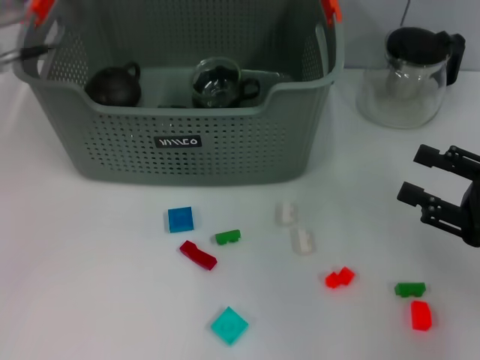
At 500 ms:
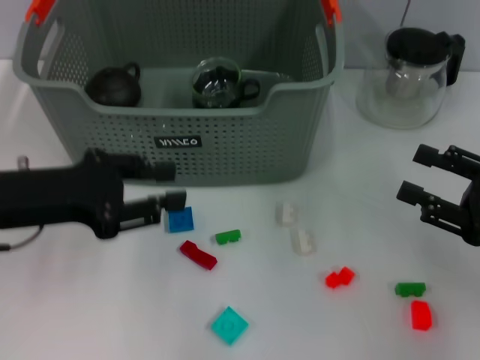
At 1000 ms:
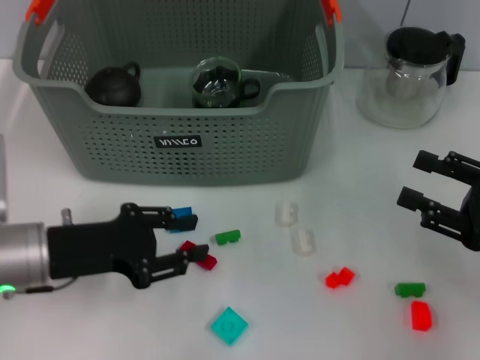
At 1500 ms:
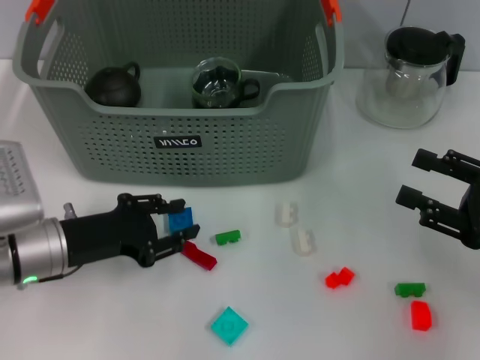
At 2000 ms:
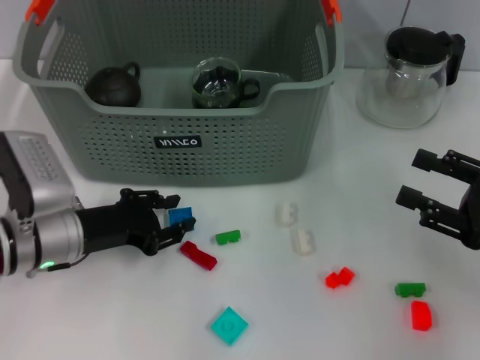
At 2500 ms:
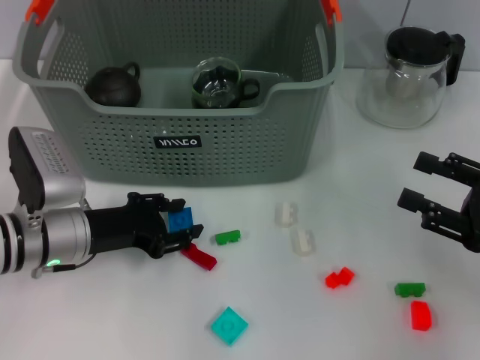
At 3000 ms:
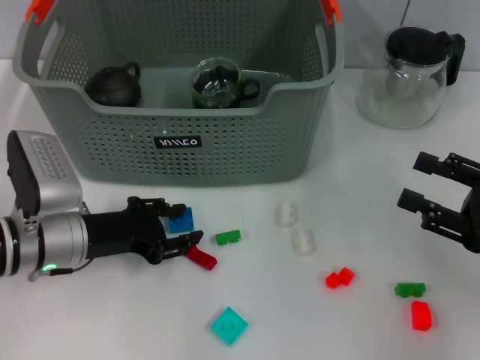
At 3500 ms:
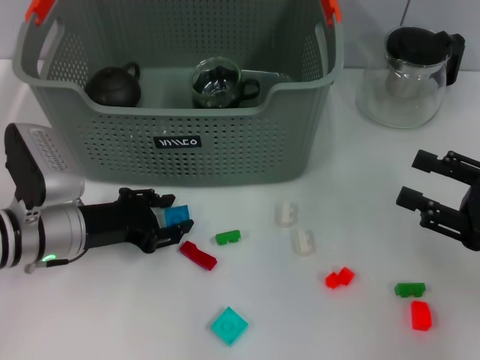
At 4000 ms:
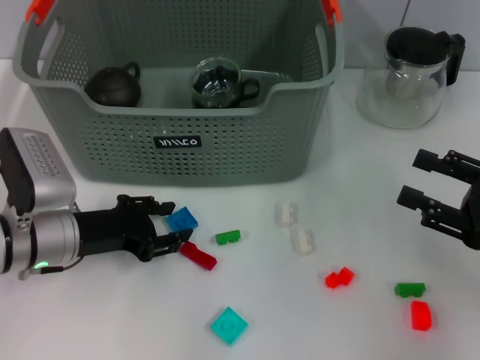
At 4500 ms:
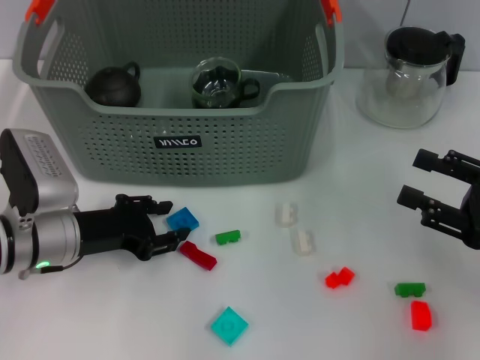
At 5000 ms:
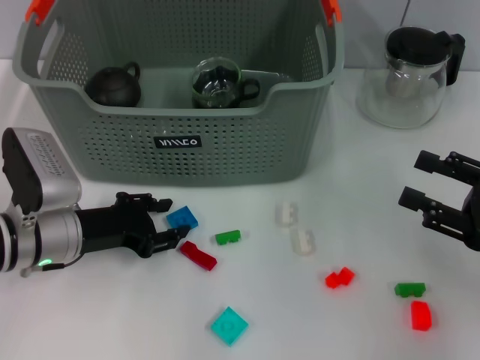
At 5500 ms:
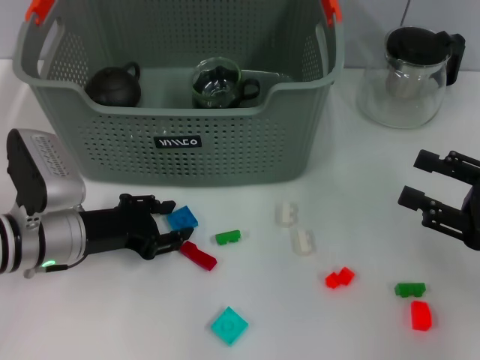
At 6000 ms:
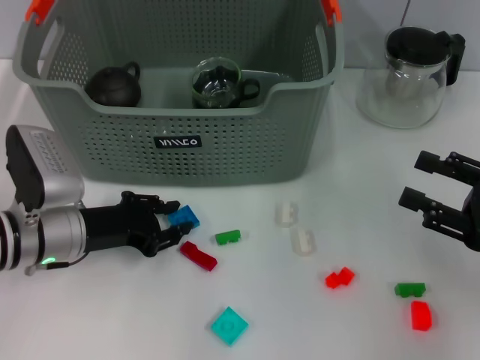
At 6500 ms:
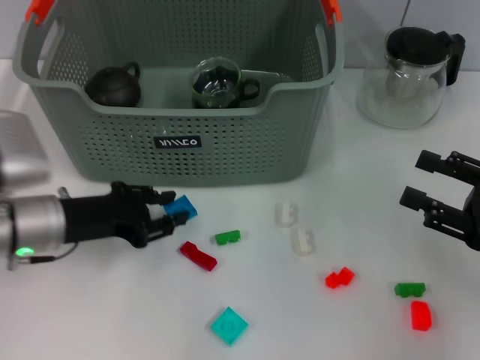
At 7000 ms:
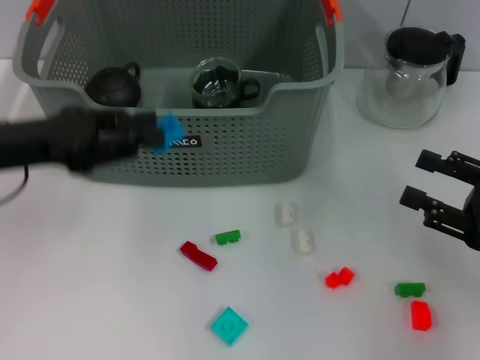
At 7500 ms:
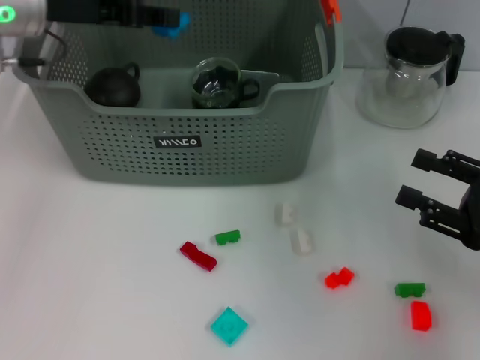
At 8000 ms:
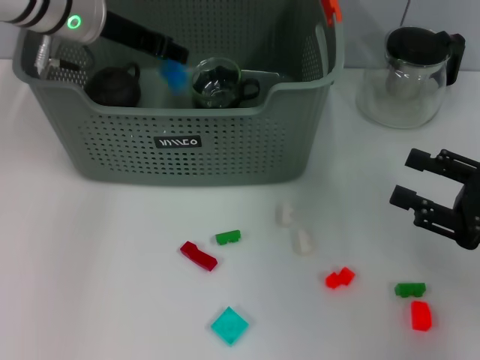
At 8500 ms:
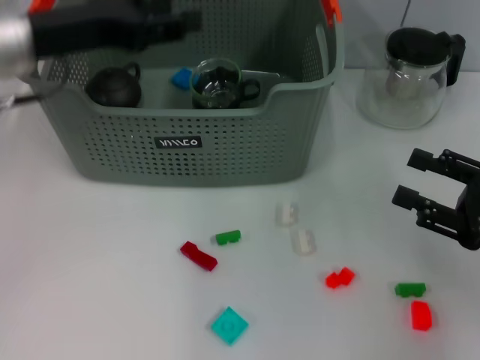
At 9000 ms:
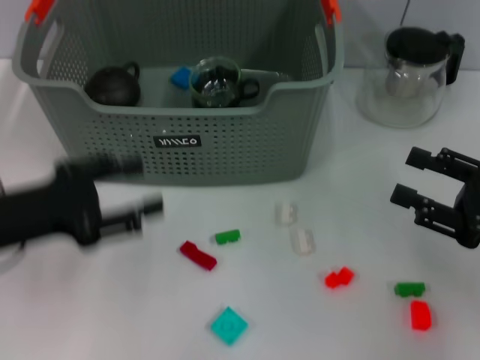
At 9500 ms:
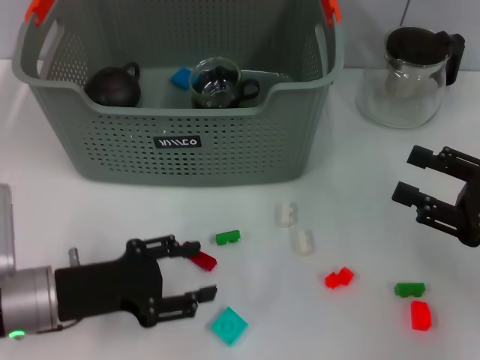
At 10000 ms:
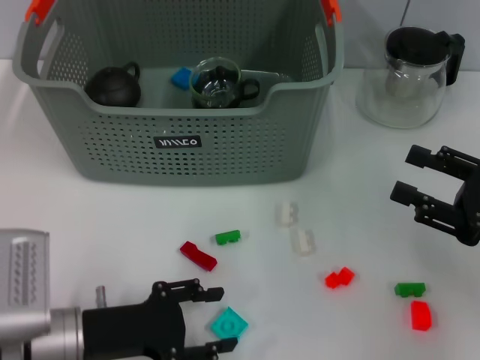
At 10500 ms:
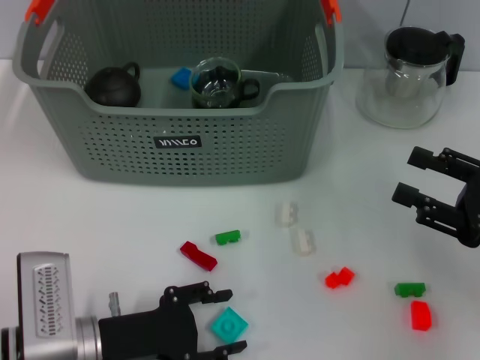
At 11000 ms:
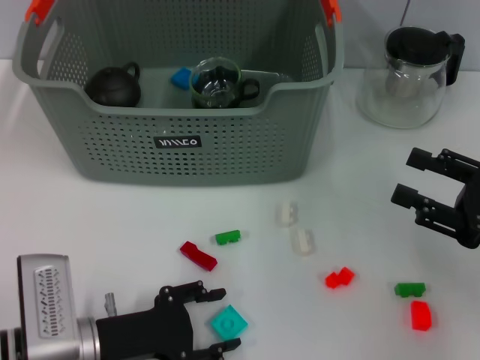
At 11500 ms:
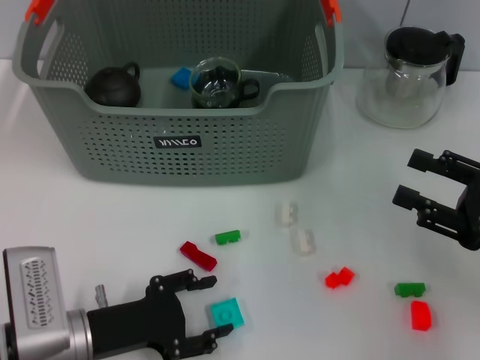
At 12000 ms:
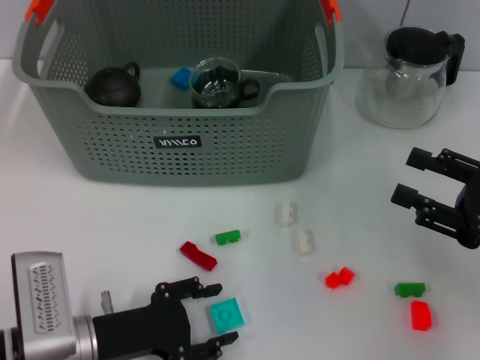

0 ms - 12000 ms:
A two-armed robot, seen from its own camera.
Task of the whole recording: pick up the teacup on the table and place it into the storage bin, pick up the block on the table and place it into the storage bin.
Step, 500 ms - 6000 ms: Grasp the dark blue block with left gripper.
Step, 6500 ms - 8500 ms: Place the dark blue block in the storage box with left gripper.
0 ms - 2000 ms: The left gripper heads downward, covering some 20 cm.
2000 ms - 4000 ms: The two grippers keep their place.
4000 ms - 6000 ms: Neither gripper changes place.
6000 ms - 8000 ms: The left gripper heads upward and forward, covering roughly 20 cm.
8000 ms - 10000 ms: The left gripper goes roughly 30 cm backward and downward, and opens up.
10000 ms - 12000 ms: The grippers make only small movements.

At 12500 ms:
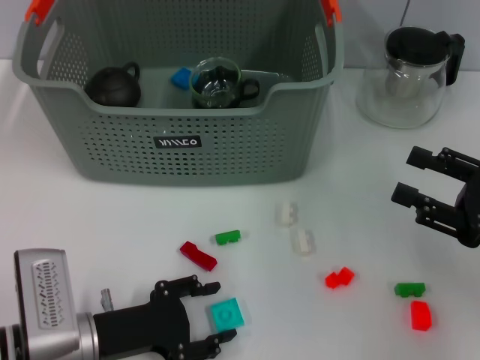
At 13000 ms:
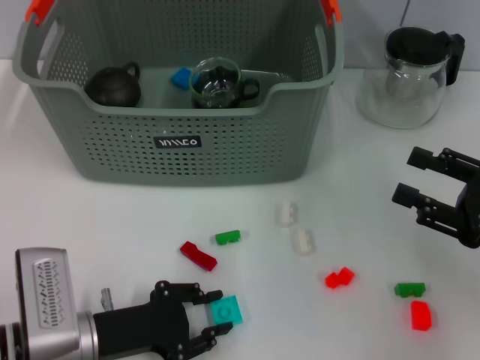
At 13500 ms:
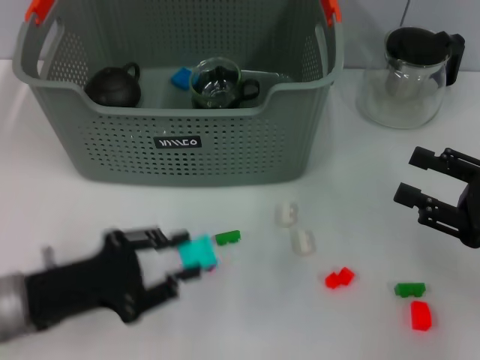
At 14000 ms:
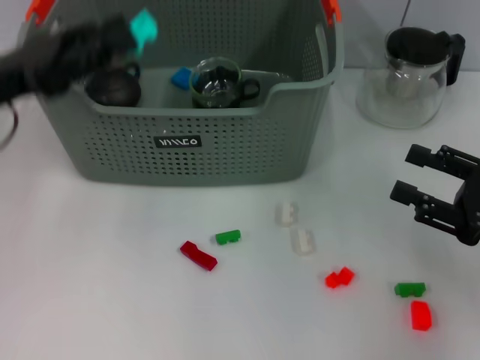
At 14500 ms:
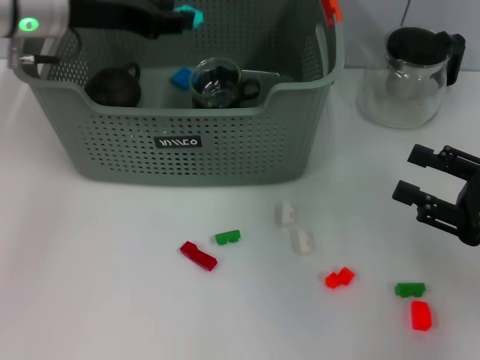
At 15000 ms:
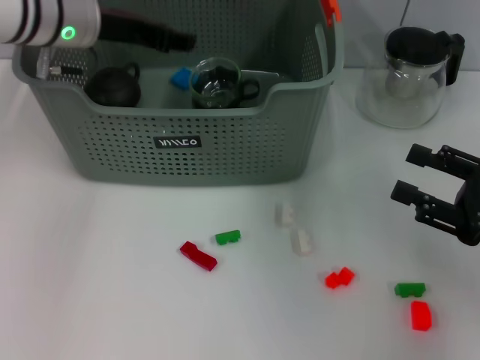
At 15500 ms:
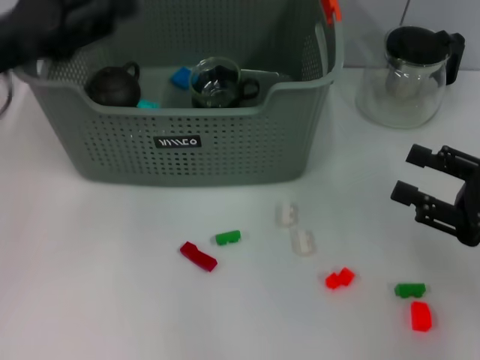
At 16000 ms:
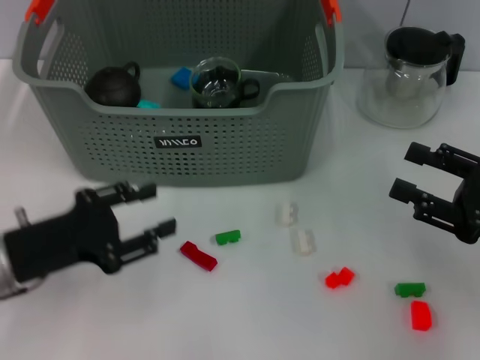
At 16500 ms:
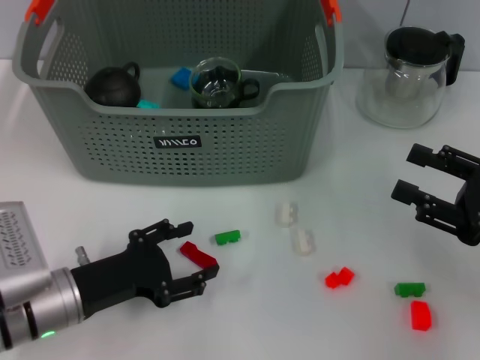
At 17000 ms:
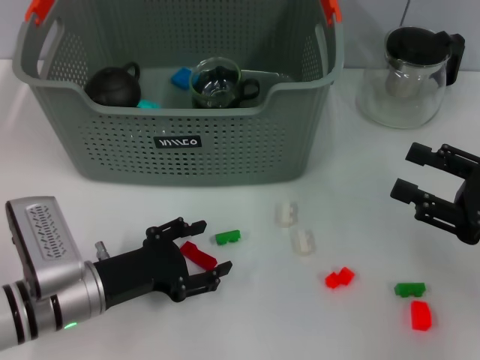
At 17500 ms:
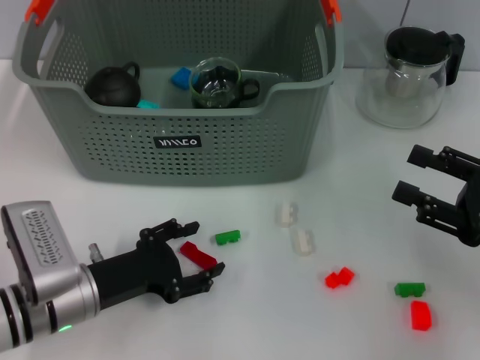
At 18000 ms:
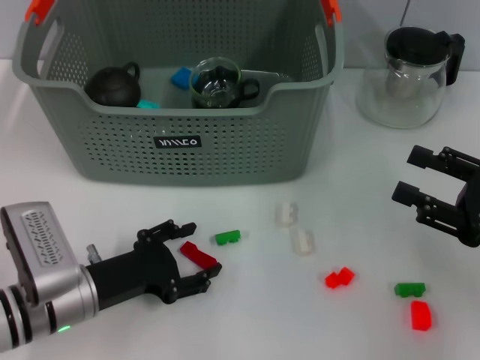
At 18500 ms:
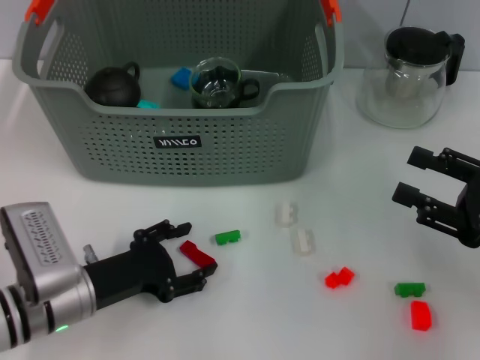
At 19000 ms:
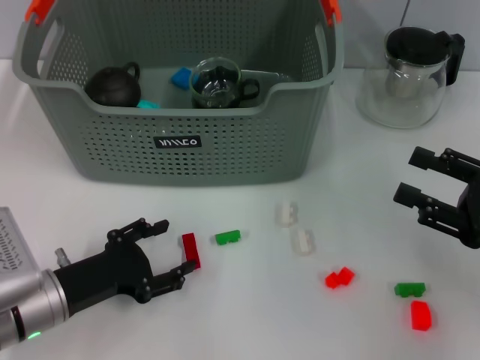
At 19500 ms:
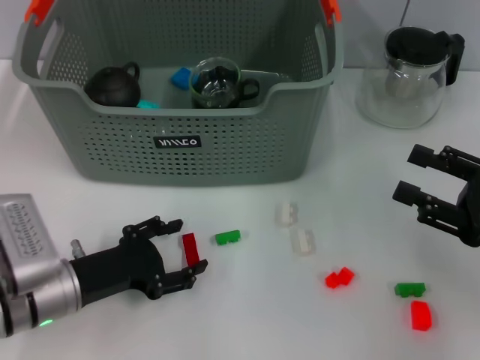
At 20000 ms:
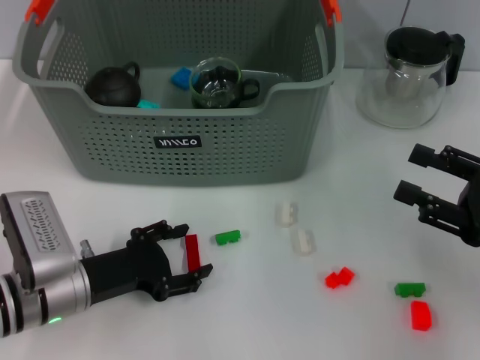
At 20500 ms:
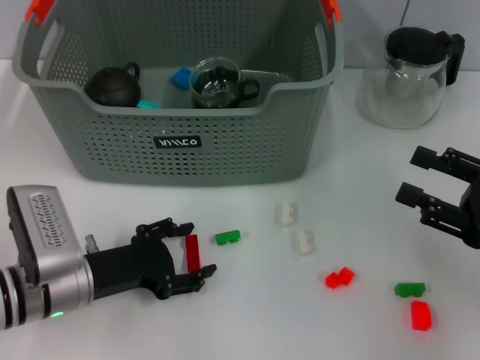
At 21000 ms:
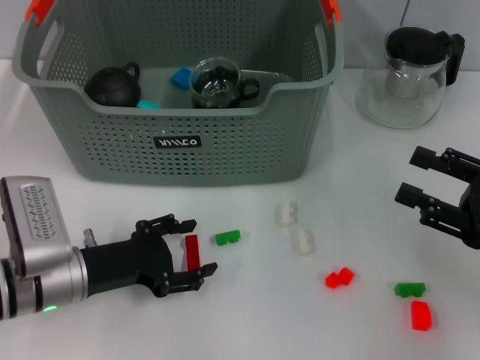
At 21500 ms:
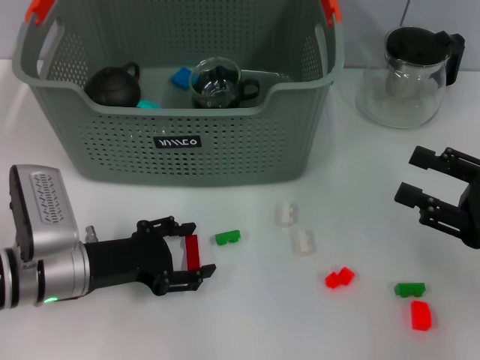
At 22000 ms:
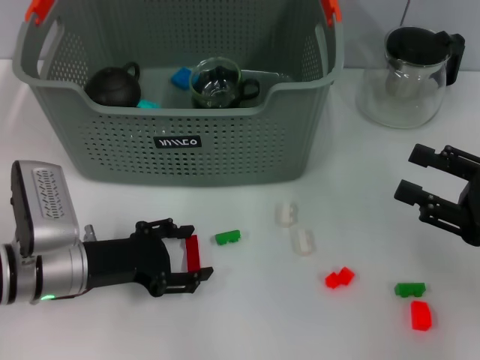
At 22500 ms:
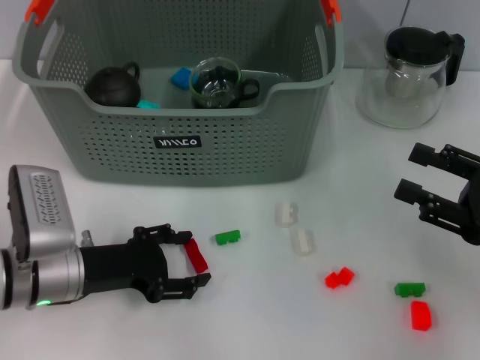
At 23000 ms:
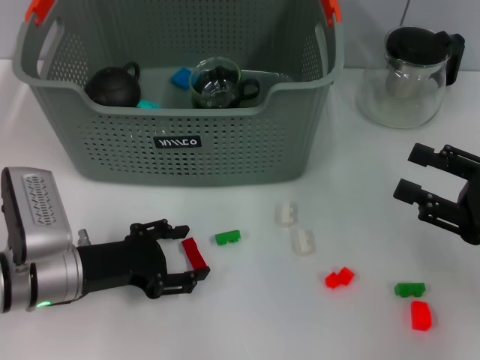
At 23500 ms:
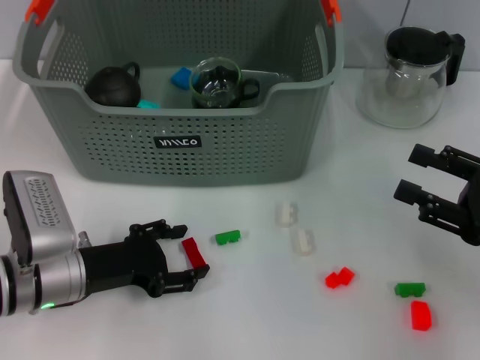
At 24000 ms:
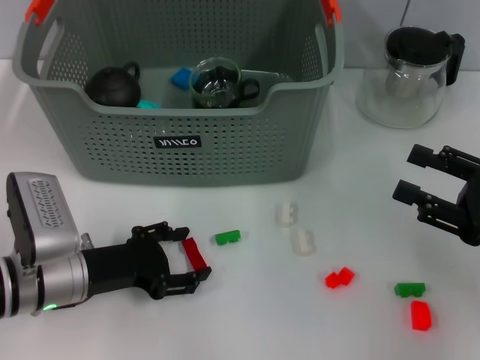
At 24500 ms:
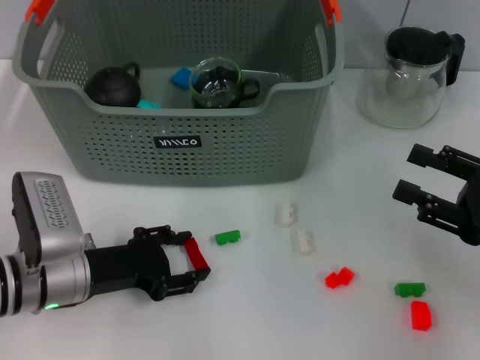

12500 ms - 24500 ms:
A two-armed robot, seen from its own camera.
Task of the whole recording: pick up the teacup on the table and place it into the storage bin, pick up the block on the table and place it into the storage bin.
Step, 13500 ms - 15500 ms: Place the light blue block in the storage box with left gripper.
Step, 16000 ms - 24500 ms: Grasp the red block with left gripper.
12500 ms - 14500 ms: The left gripper moves upward and forward, about 30 cm, and closes.
14500 ms - 16500 ms: The left gripper goes roughly 30 cm downward and backward.
16500 ms - 22500 ms: The grippers make only small movements.
22500 ms - 24500 ms: Neither gripper changes place.

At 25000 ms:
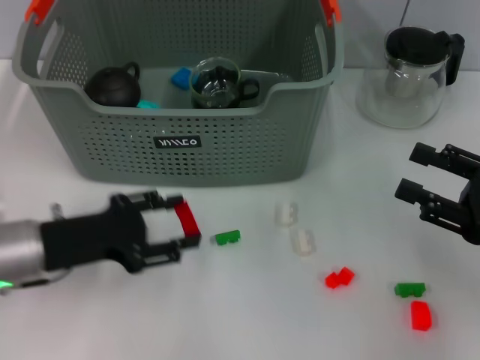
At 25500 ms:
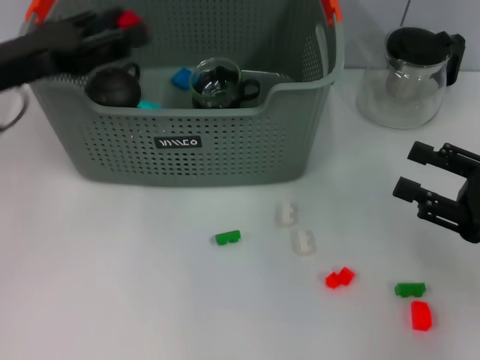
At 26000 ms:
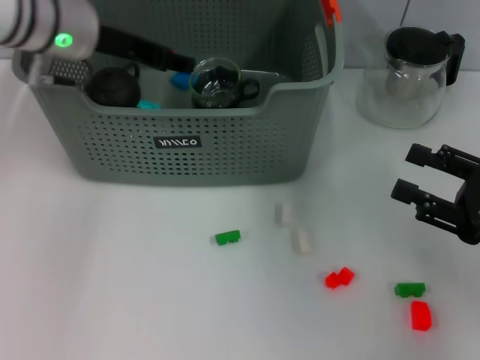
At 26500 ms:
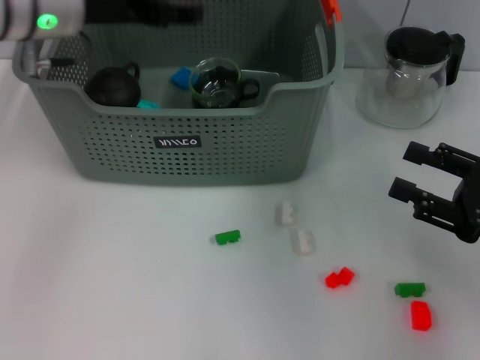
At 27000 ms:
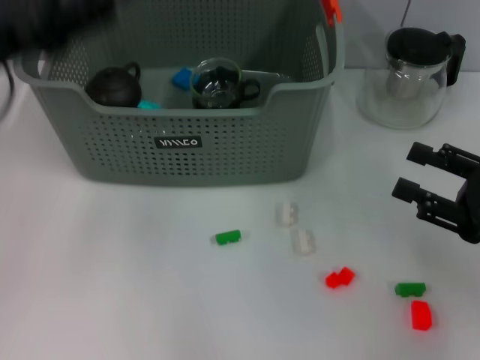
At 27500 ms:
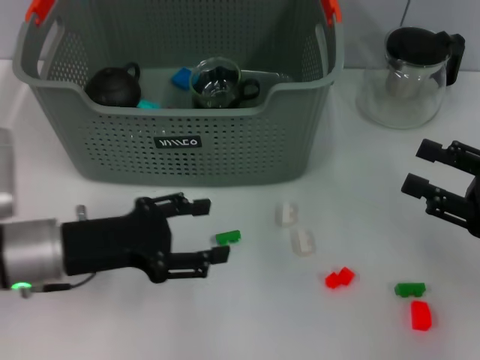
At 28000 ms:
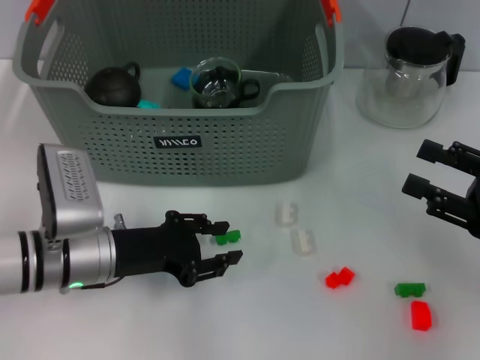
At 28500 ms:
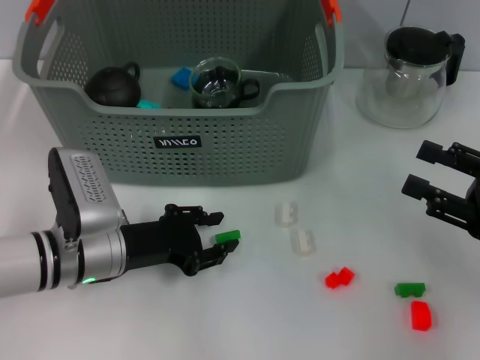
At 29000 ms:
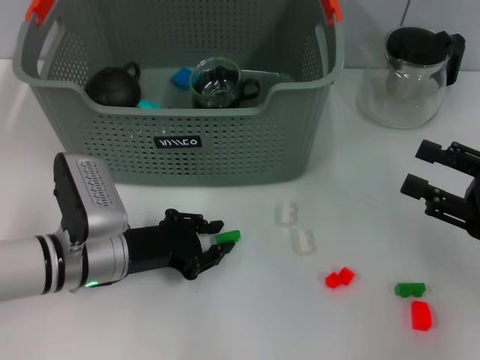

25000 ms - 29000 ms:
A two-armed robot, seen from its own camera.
Task of the whole recording: pick up the teacup on the table and place it into the storage bin, pick up the block on the table and place it into the storage bin.
Step, 25000 ms - 26500 ms: Place the red block in the storage box with left gripper.
25000 ms - 27000 ms: The left gripper heads upward, covering roughly 15 cm, and moves about 15 cm forward and comes back.
27000 ms - 29000 ms: The left gripper travels downward and to the right by some 20 cm, and closes up.
